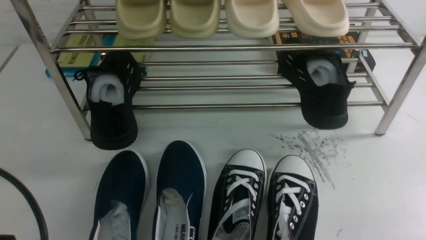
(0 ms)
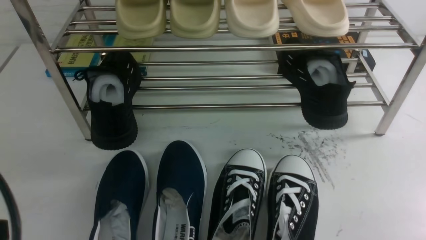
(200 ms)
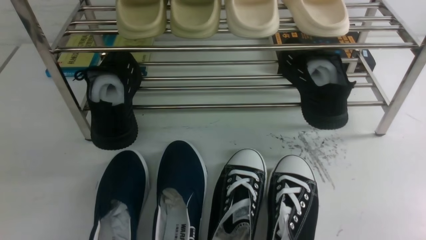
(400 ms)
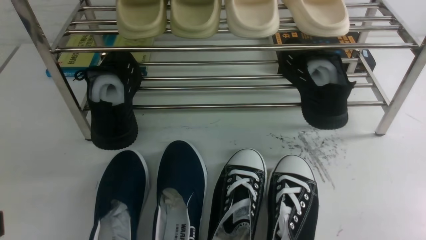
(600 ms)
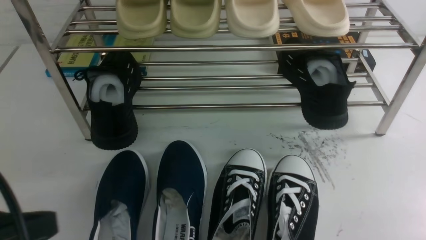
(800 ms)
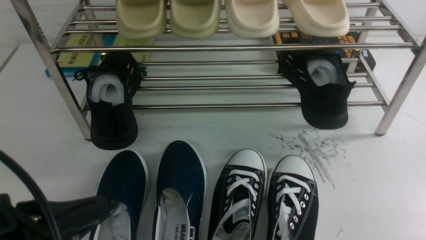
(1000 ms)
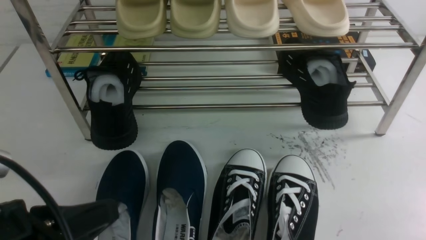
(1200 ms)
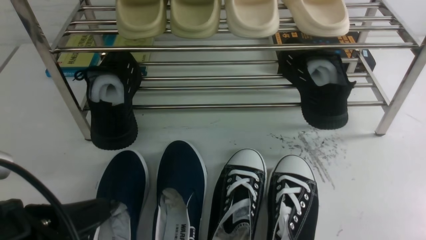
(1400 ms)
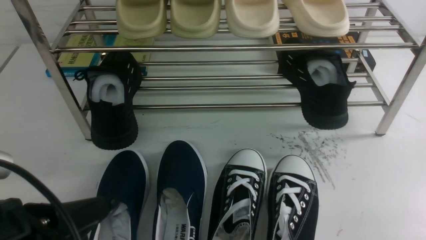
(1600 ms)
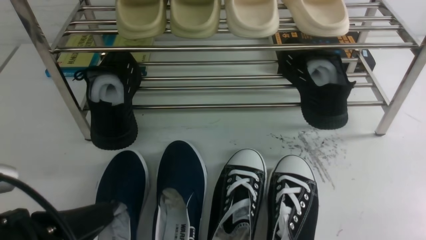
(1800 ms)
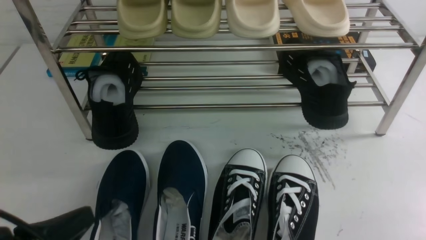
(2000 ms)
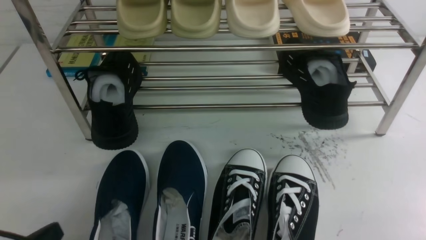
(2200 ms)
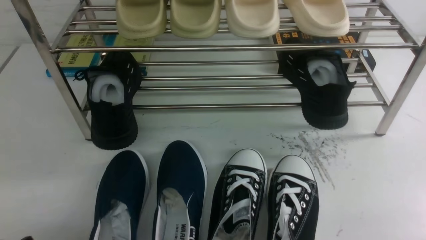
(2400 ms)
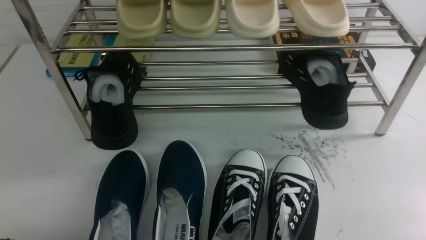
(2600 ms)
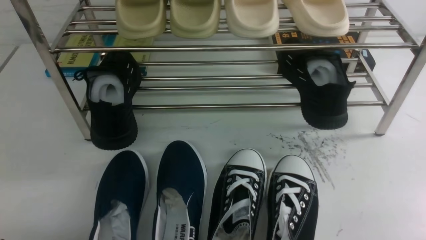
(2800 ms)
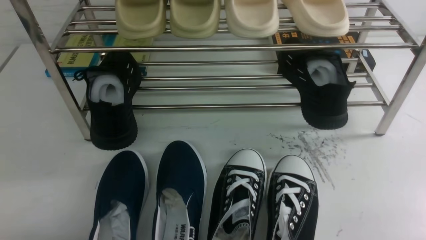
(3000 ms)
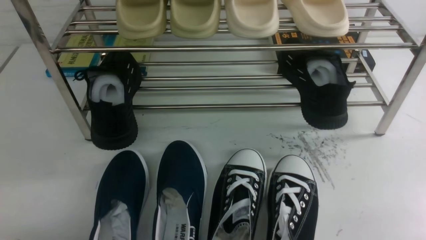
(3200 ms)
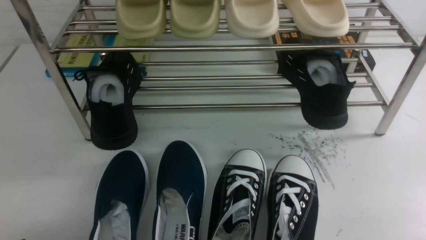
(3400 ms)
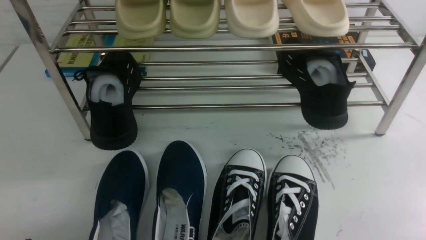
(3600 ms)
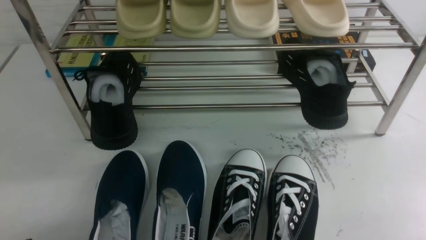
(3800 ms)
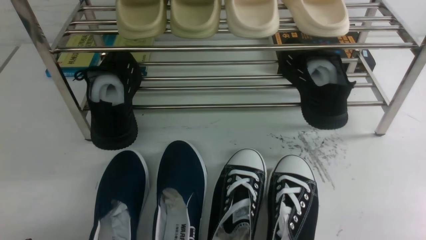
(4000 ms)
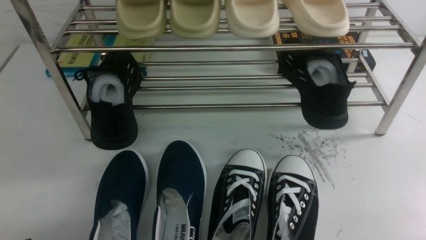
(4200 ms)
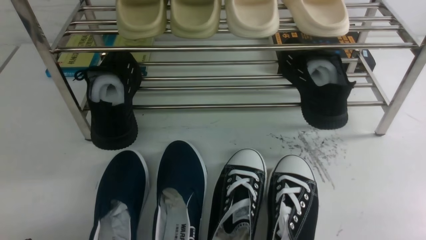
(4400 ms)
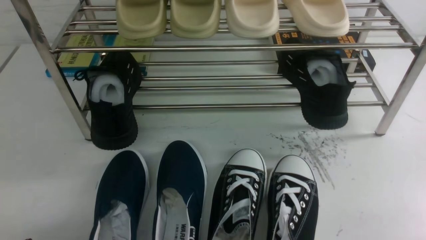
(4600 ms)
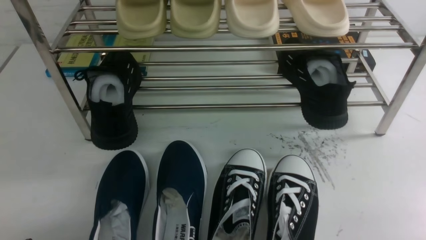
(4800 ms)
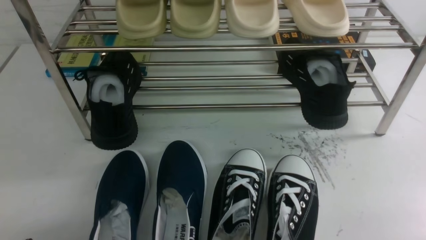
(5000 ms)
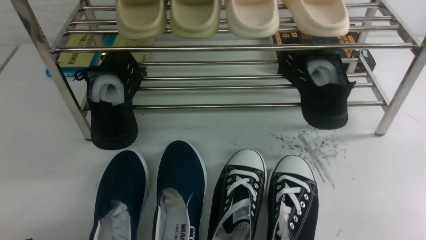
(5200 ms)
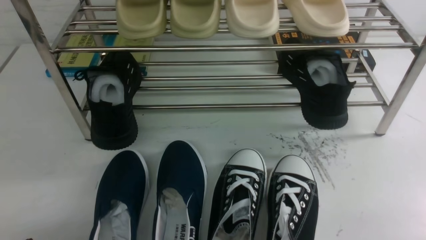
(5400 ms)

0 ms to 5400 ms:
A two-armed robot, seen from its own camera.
0 ms to 1400 ms: The left gripper ends up about 5 cm from where it was, and closes its fingers.
1400 ms to 2800 ms: The left gripper goes about 15 cm downward and to the left.
4000 ms to 5400 ms: Both grippers stay about where they are.
